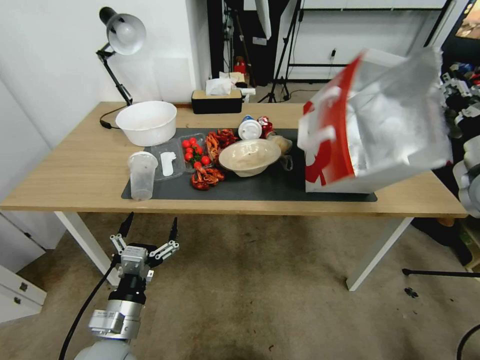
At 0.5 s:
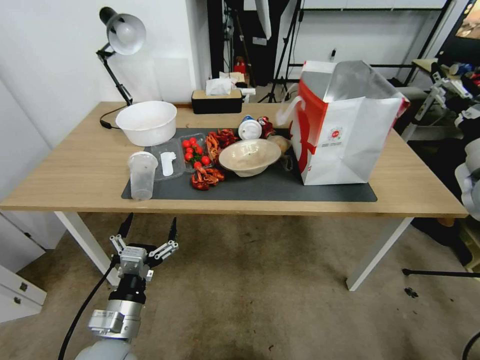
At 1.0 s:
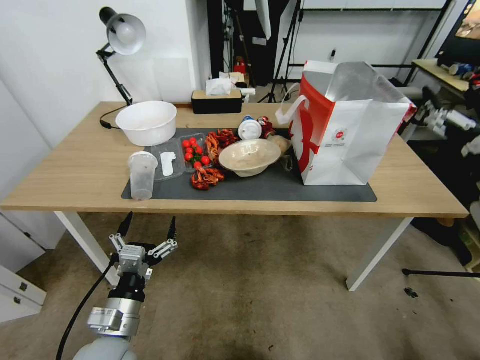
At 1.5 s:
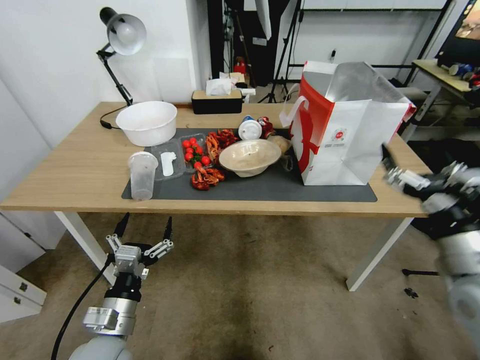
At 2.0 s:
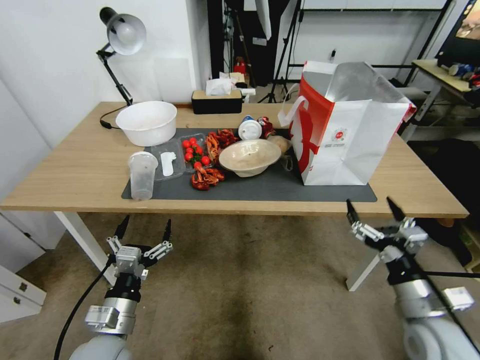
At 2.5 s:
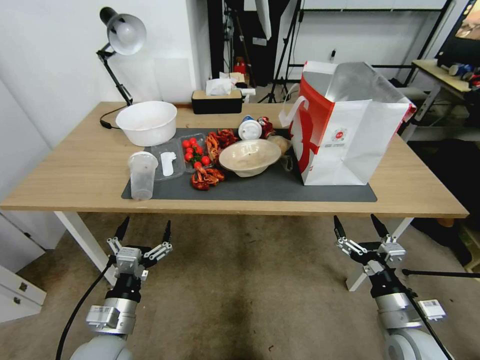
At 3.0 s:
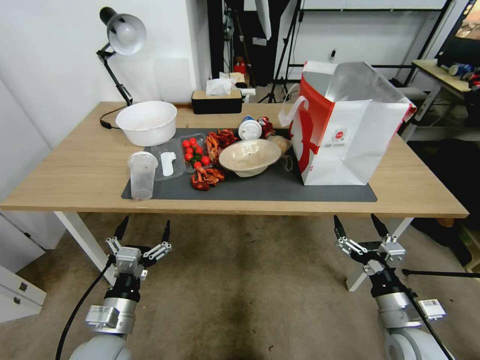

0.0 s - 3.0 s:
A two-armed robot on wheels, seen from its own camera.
Task of the whole recording: Pick up the food delivery bag from the floor and place it on the table.
0.0 s - 1.5 s: The right gripper is displaced backward, downward and to the left by approximately 20 cm, and opens.
1.5 s - 3.0 s: The right gripper shifts about 15 cm downward.
